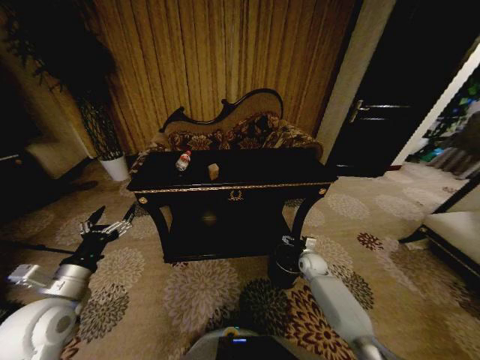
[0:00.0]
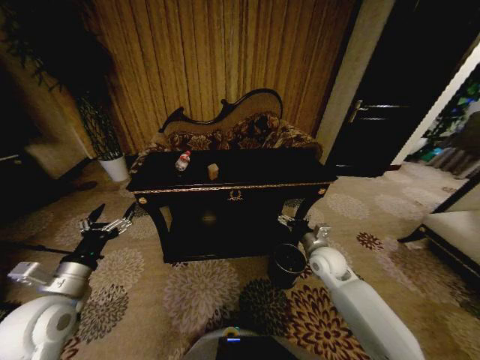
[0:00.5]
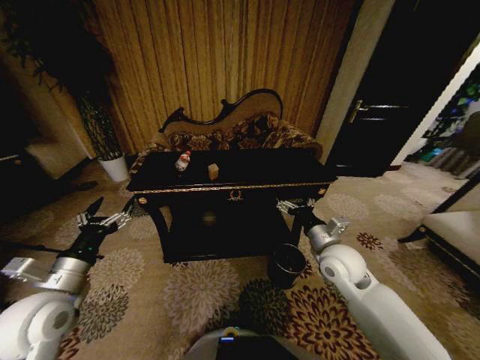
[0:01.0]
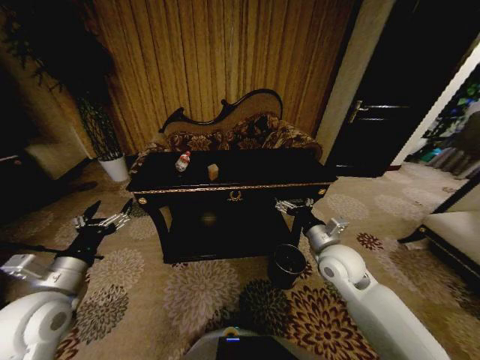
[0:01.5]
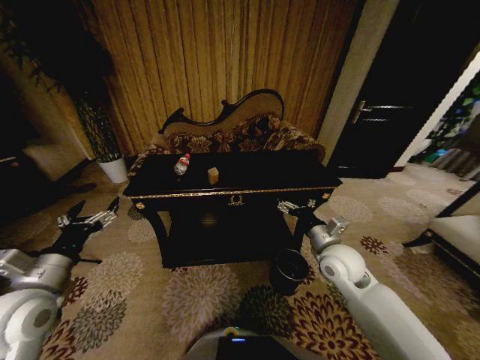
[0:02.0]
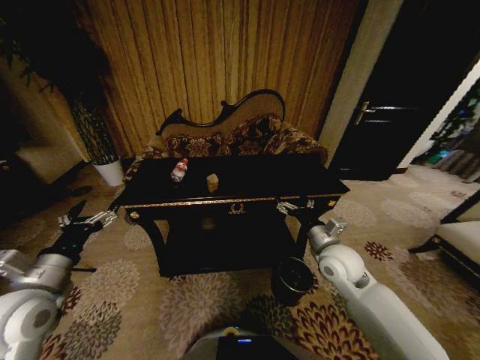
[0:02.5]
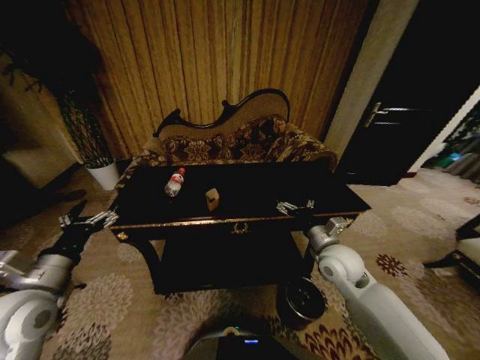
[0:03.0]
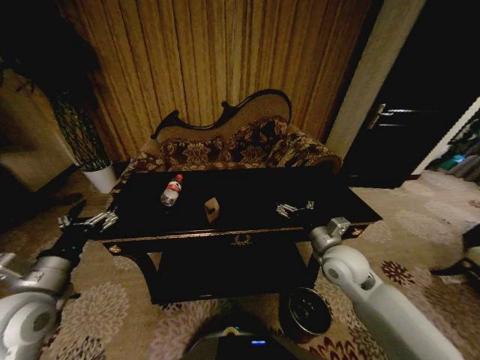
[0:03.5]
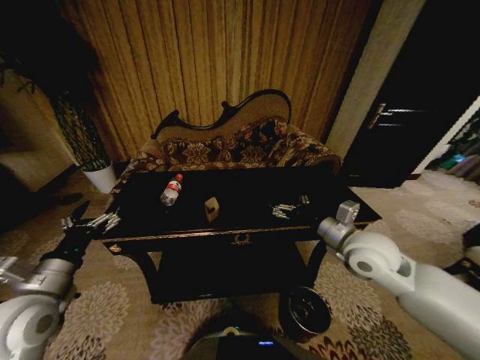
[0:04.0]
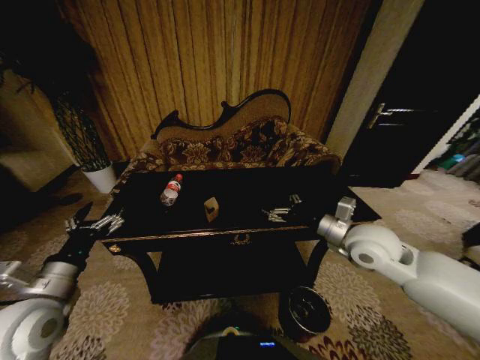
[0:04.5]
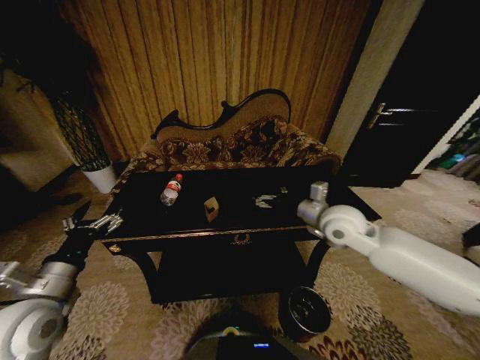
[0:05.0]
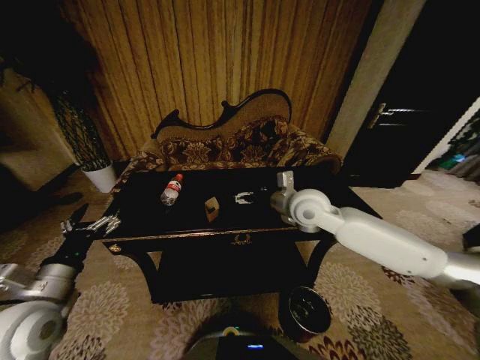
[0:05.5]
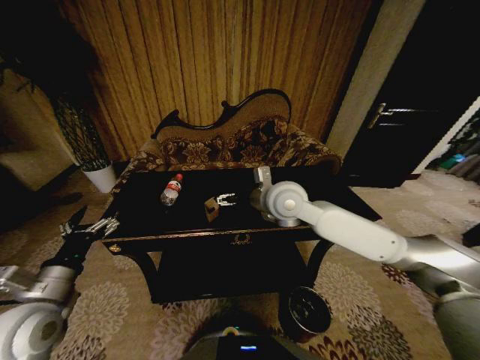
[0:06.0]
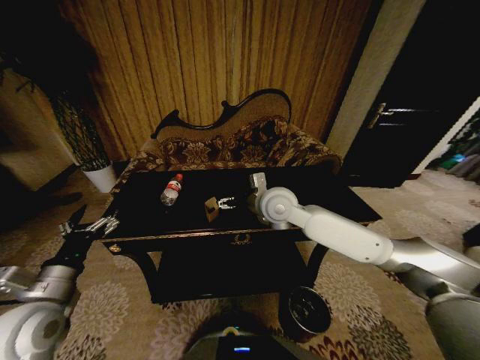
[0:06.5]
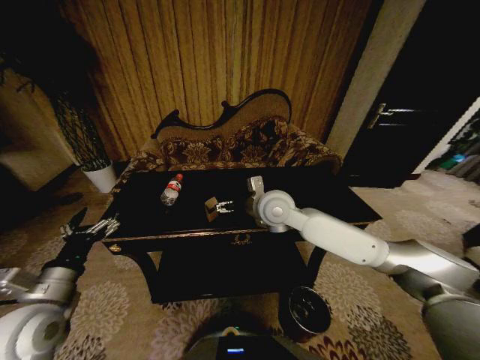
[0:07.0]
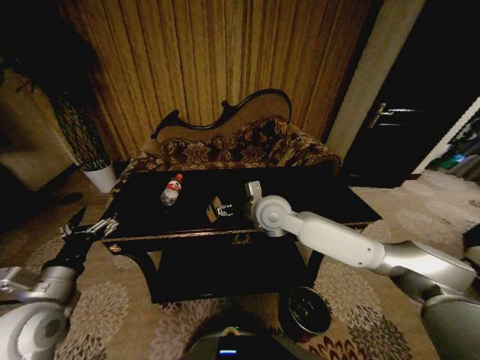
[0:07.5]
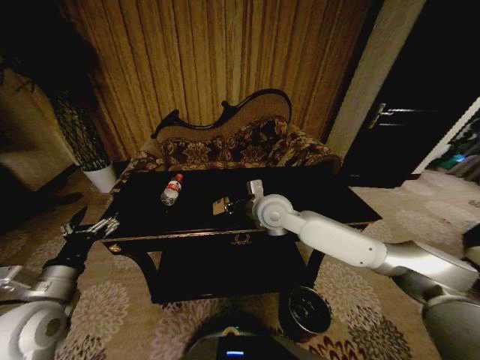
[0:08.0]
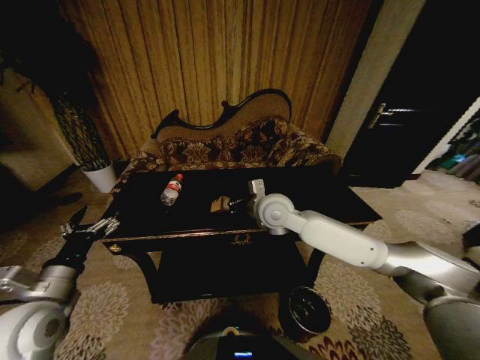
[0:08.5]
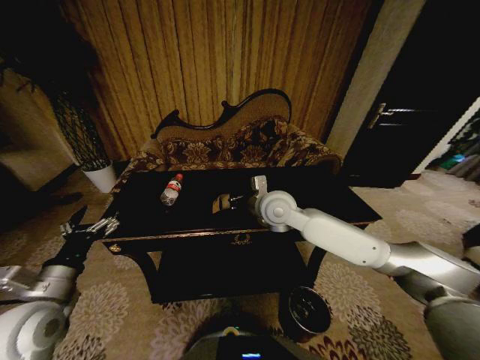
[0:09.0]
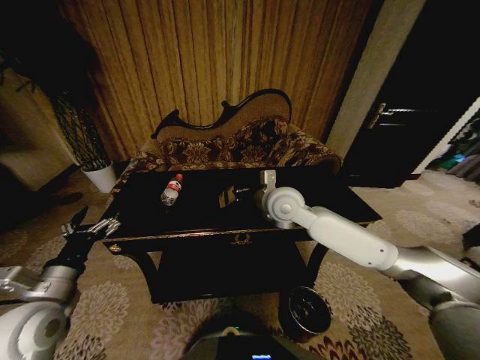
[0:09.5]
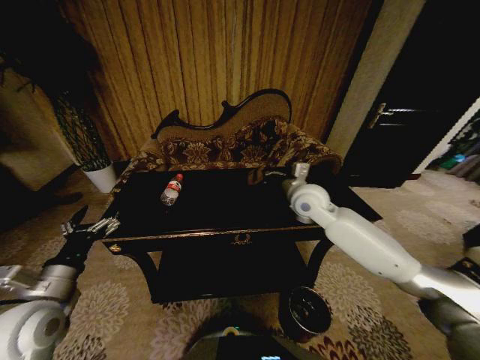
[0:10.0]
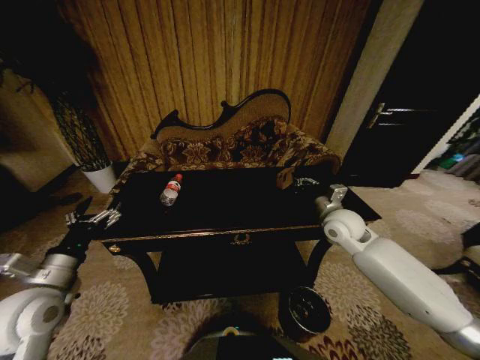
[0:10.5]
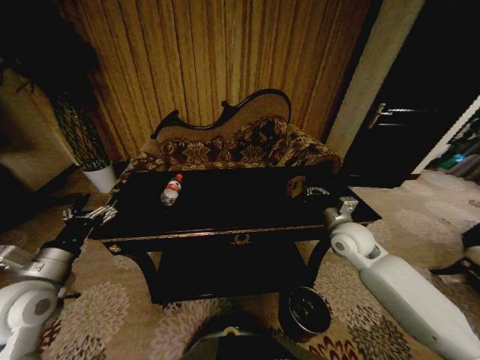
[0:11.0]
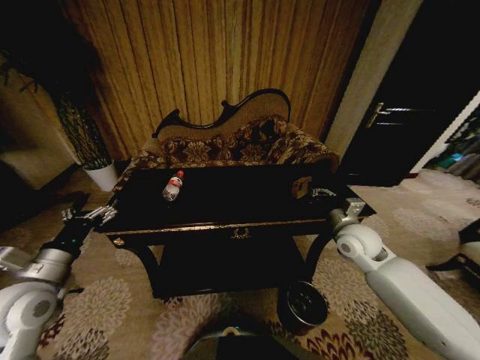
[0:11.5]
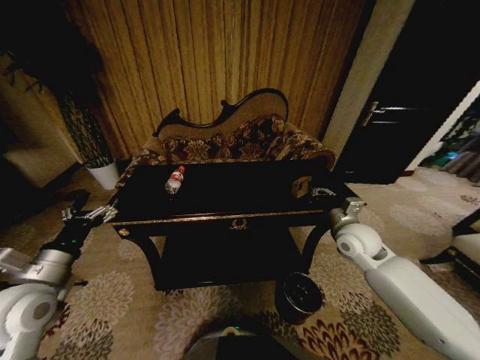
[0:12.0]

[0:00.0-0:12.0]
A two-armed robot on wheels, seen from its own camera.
Task of the whole recording: Move to the front of the table and place the trash on the table into the trash bin.
0:00.0 to 0:02.0: The right gripper goes roughly 25 cm upward.
0:02.0 to 0:04.0: The right gripper heads upward, covering approximately 10 cm.
0:04.0 to 0:06.0: The right gripper moves to the left and forward, some 20 cm.
0:06.0 to 0:08.0: The right gripper is displaced downward by some 5 cm, and closes its fingers.
0:08.0 to 0:10.0: The right gripper travels to the right by some 10 cm, and closes its fingers.
0:10.0 to 0:12.0: The right gripper shifts some 15 cm to the right, downward and backward.

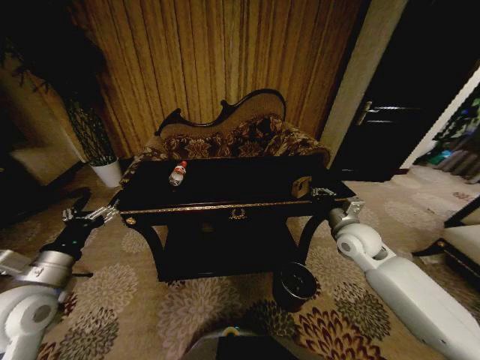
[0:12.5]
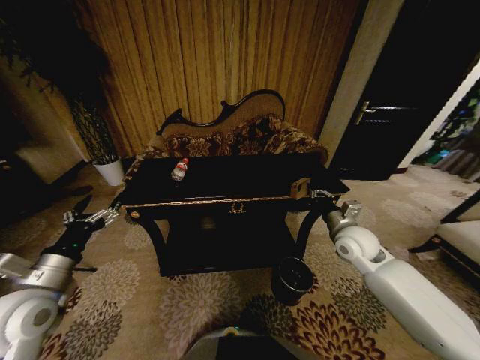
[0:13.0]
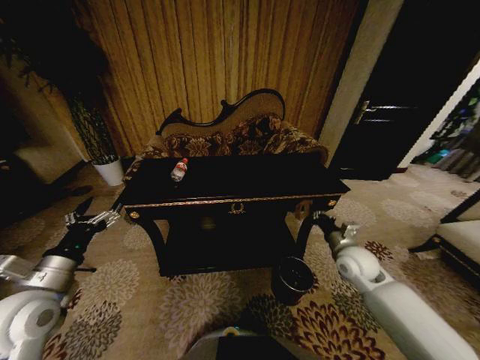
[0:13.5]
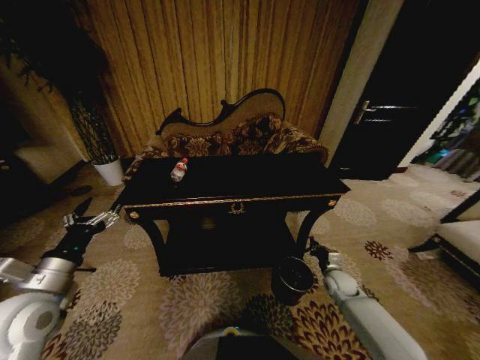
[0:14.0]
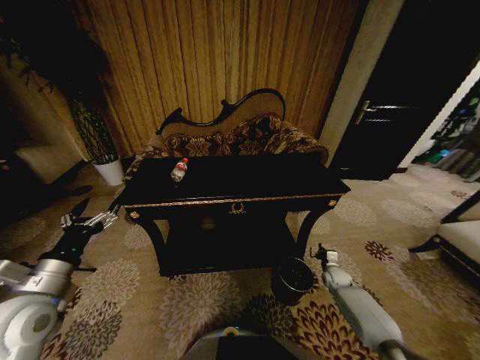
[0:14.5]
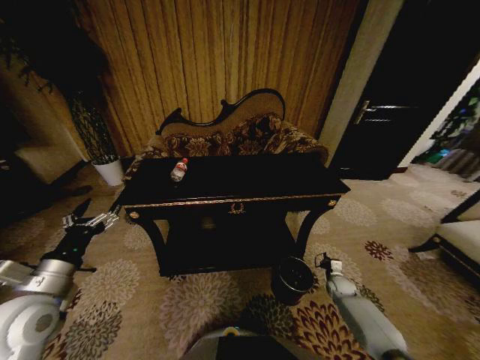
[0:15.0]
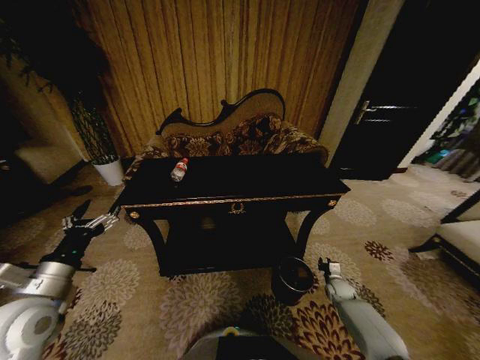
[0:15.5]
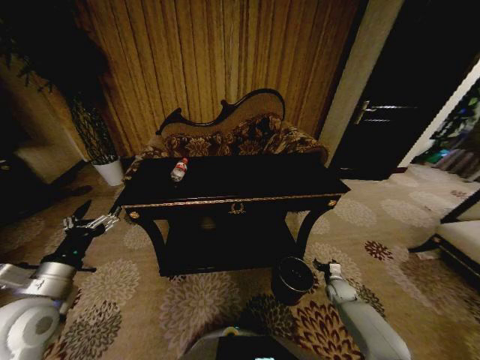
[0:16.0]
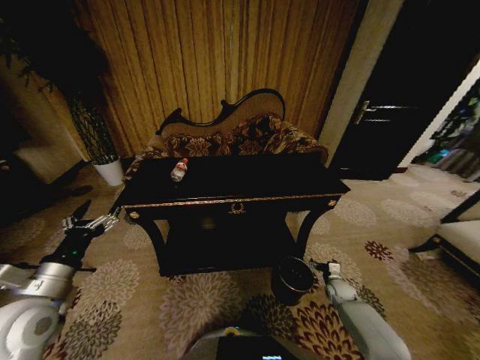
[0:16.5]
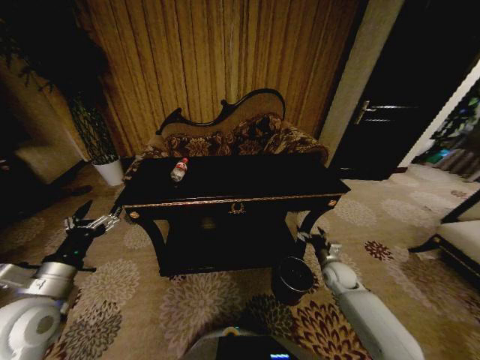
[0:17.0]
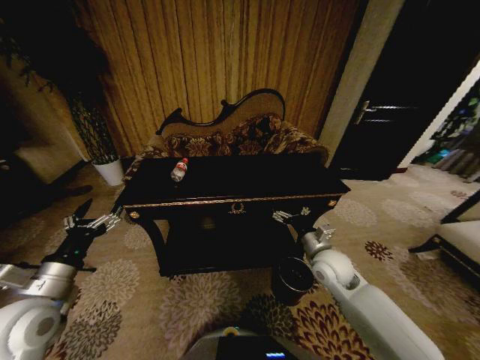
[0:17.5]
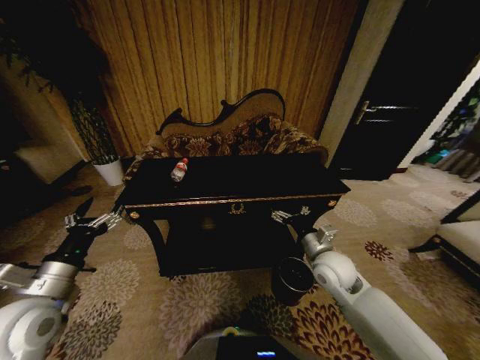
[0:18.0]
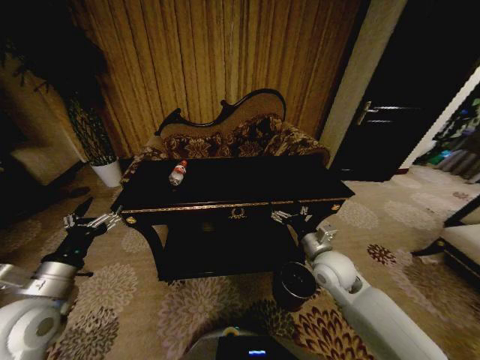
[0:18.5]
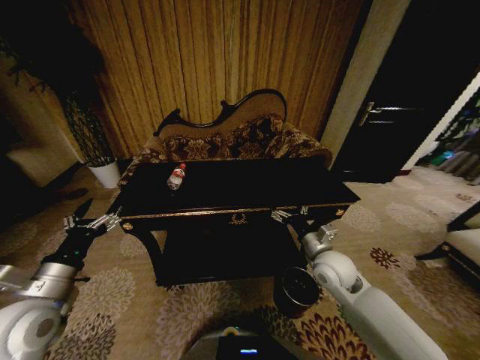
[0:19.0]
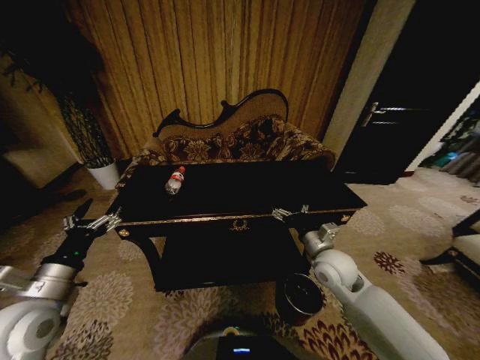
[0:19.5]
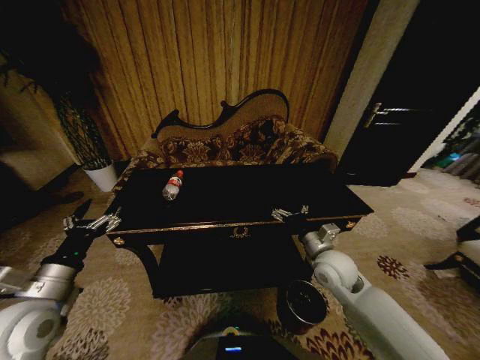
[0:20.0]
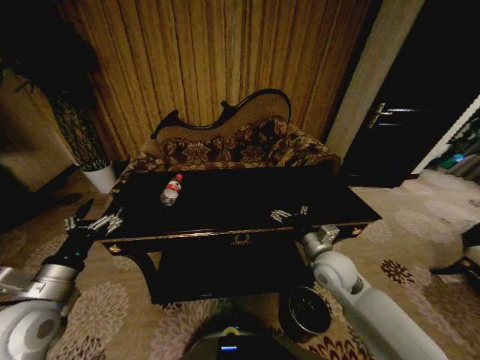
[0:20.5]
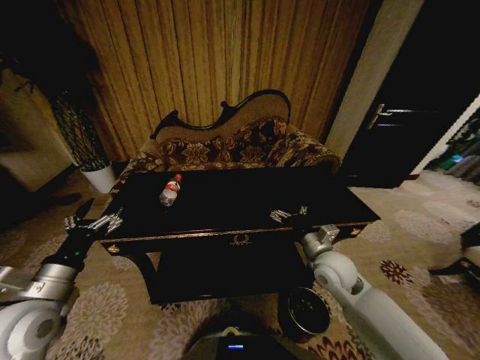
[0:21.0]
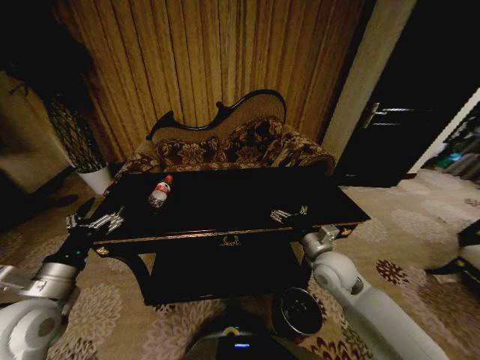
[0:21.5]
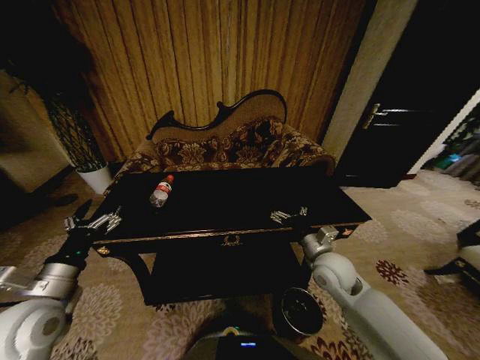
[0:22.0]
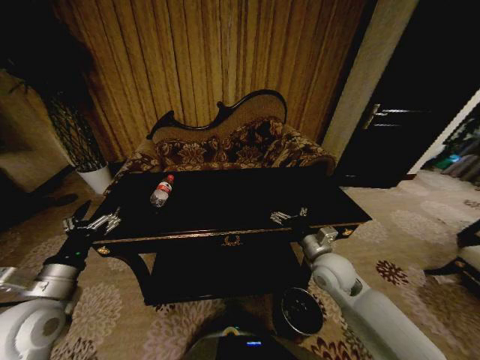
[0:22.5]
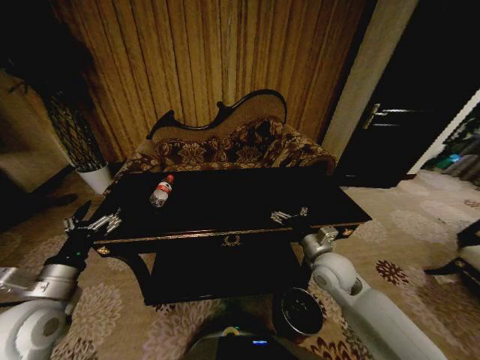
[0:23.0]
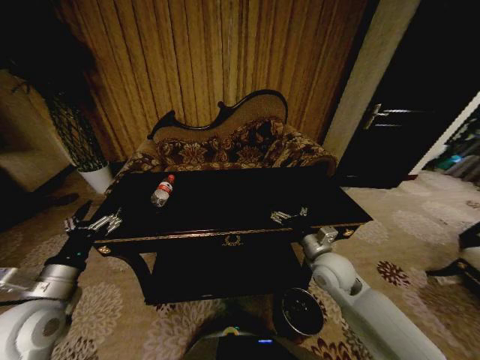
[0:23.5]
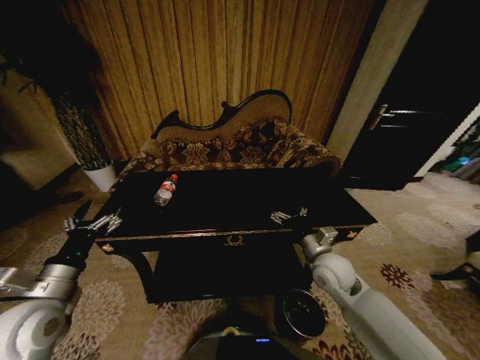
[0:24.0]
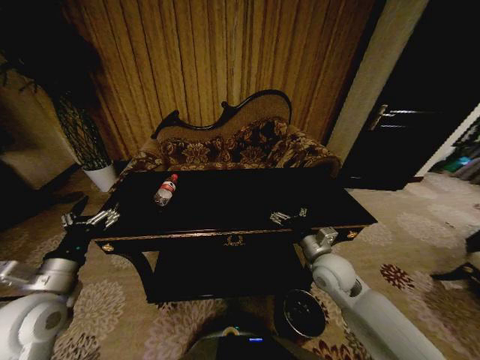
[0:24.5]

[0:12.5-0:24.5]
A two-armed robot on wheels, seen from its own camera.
Task of the whole recording: Move to the front of the table and place the trash on the table into the trash bin.
0:12.5 to 0:14.5: The right gripper heads downward, covering some 30 cm.
0:14.5 to 0:16.5: The right gripper opens up.
0:16.5 to 0:18.5: The right gripper shifts some 30 cm upward and to the left.
0:20.5 to 0:24.5: Both grippers stay about where they are.

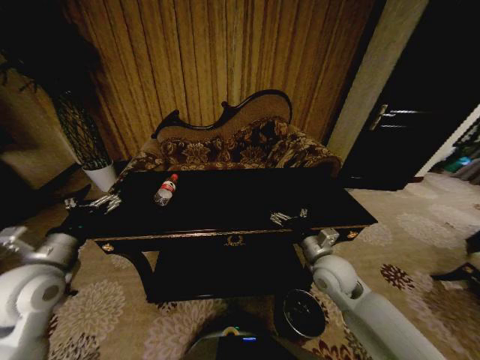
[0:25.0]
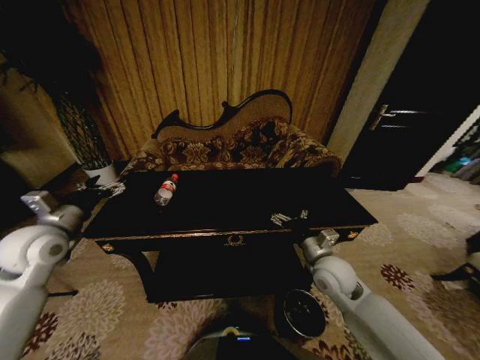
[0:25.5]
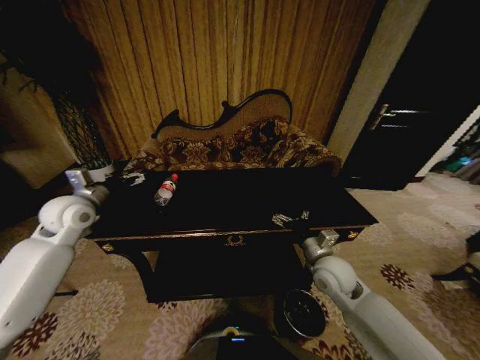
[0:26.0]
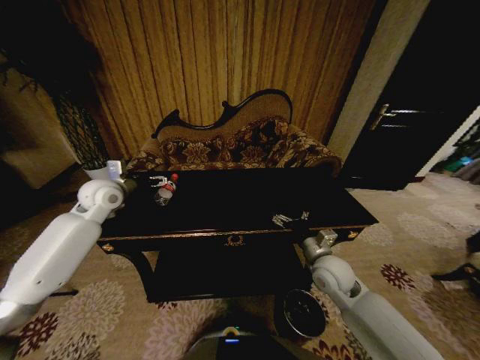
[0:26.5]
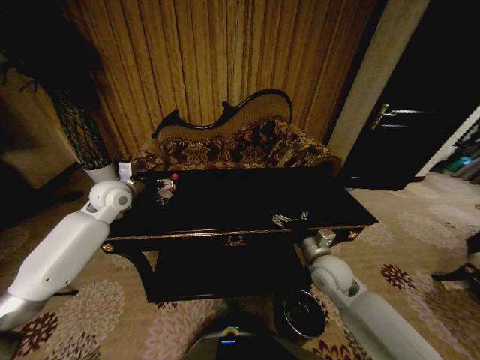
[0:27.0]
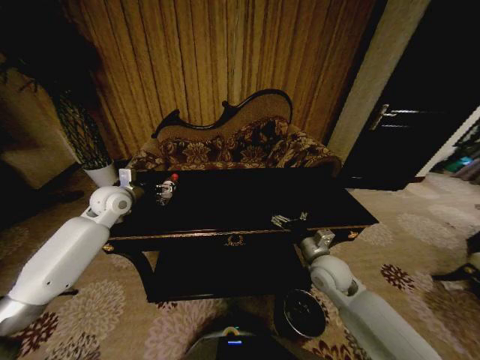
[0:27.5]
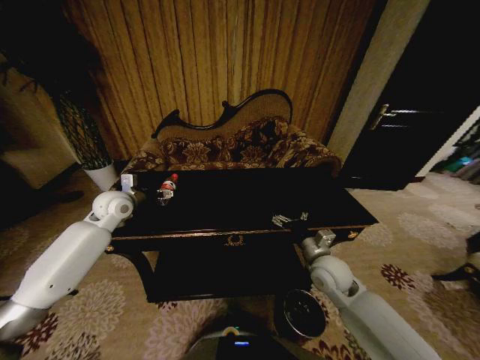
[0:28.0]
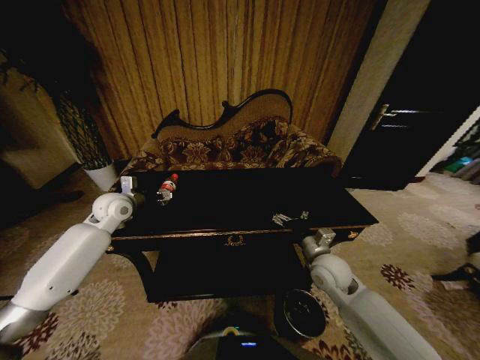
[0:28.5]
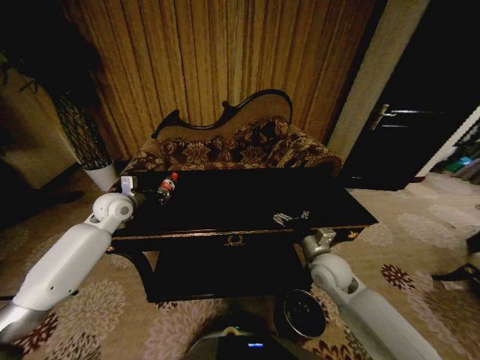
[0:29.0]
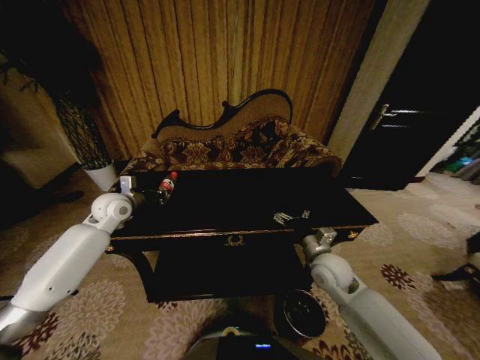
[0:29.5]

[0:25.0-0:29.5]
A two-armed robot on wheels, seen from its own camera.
Task of the whole recording: Move to the front of the table and place the trash on the table into the trash bin.
0:25.0 to 0:27.0: The left gripper is displaced forward by approximately 25 cm.
0:27.0 to 0:29.5: The left gripper closes up.
